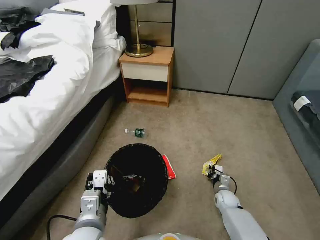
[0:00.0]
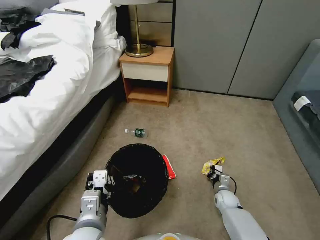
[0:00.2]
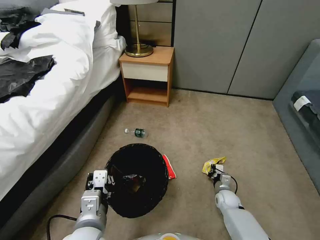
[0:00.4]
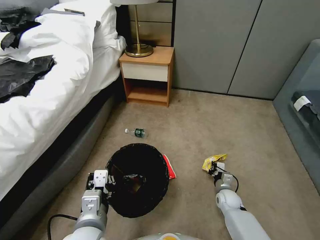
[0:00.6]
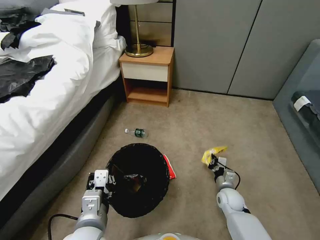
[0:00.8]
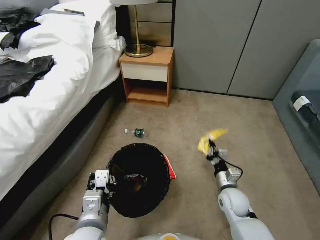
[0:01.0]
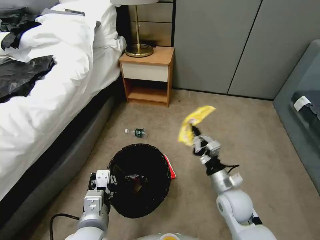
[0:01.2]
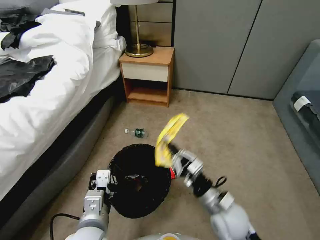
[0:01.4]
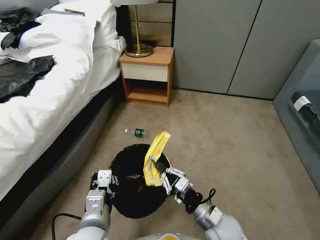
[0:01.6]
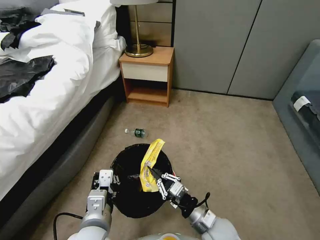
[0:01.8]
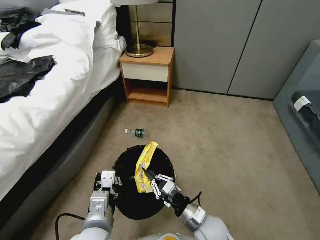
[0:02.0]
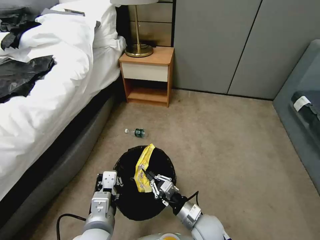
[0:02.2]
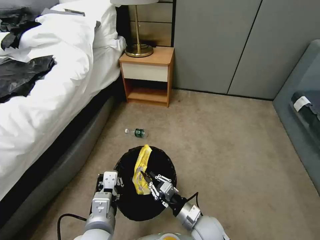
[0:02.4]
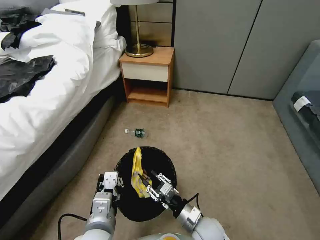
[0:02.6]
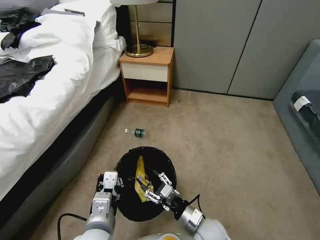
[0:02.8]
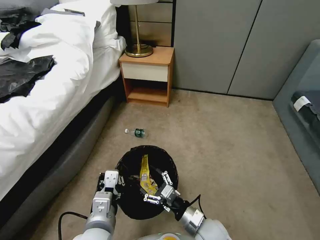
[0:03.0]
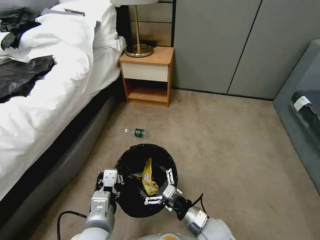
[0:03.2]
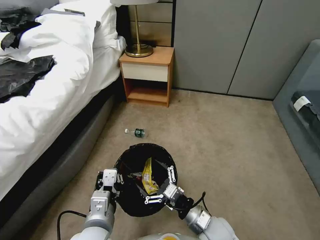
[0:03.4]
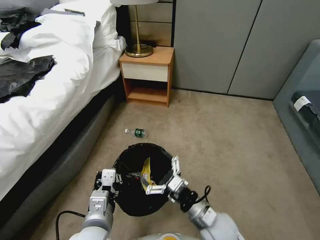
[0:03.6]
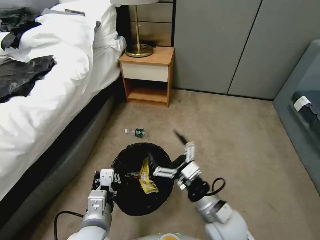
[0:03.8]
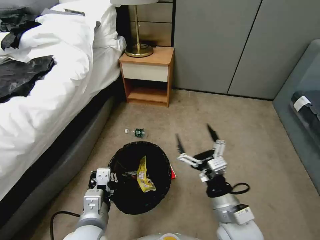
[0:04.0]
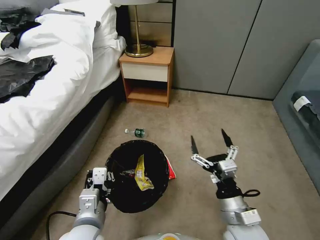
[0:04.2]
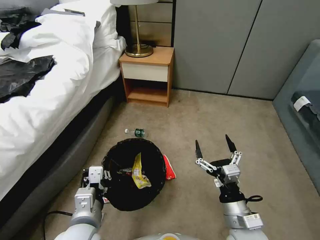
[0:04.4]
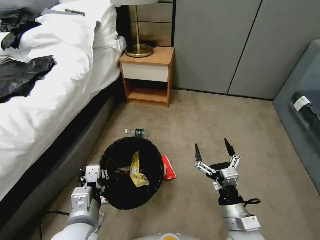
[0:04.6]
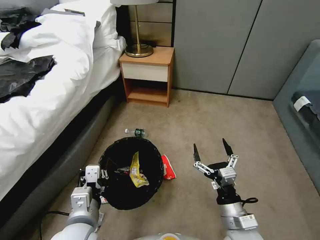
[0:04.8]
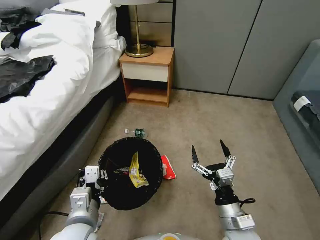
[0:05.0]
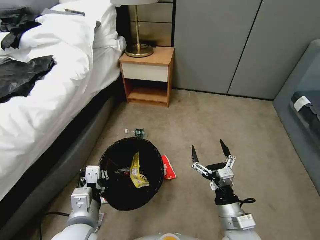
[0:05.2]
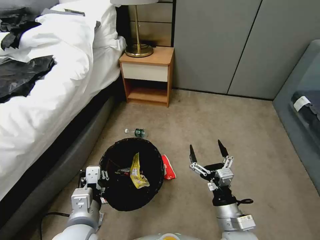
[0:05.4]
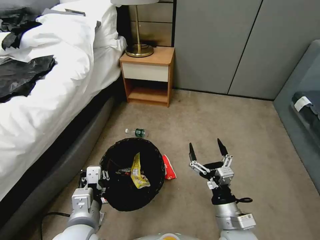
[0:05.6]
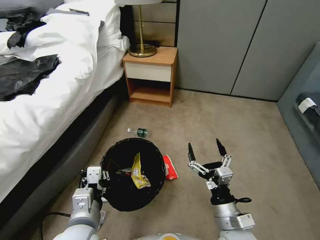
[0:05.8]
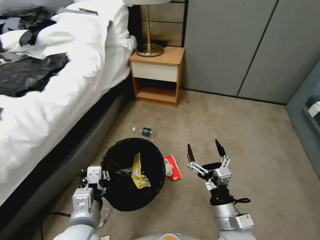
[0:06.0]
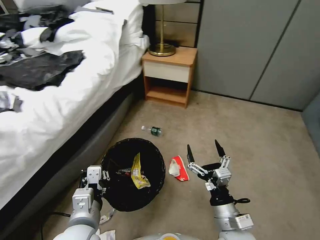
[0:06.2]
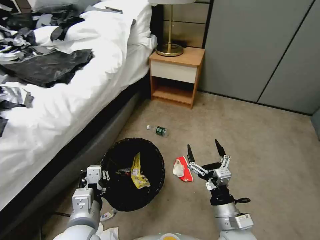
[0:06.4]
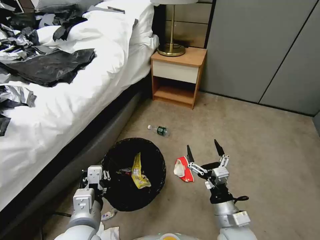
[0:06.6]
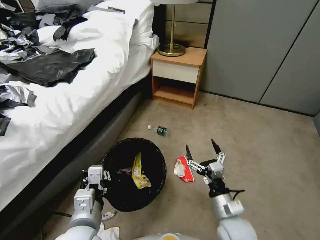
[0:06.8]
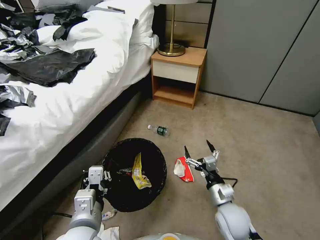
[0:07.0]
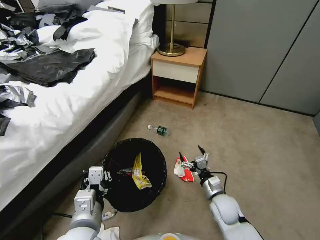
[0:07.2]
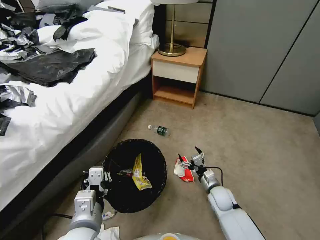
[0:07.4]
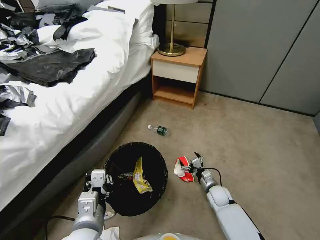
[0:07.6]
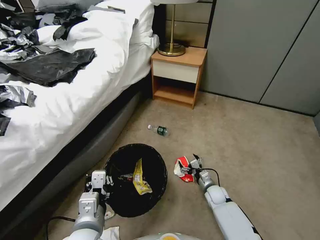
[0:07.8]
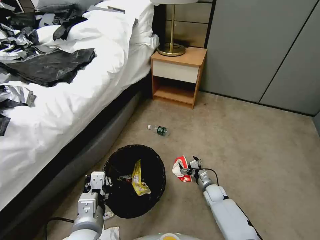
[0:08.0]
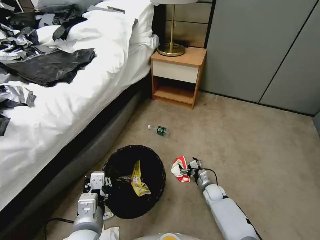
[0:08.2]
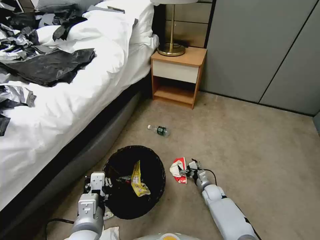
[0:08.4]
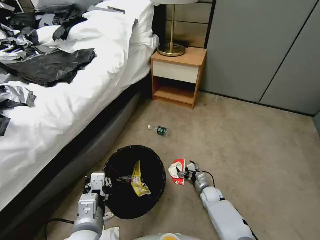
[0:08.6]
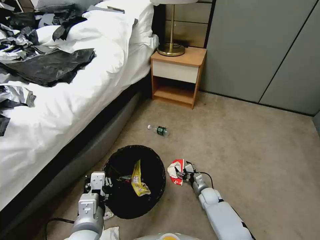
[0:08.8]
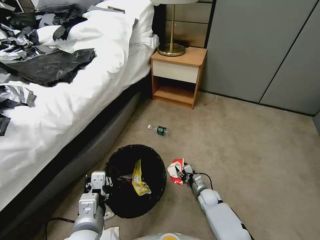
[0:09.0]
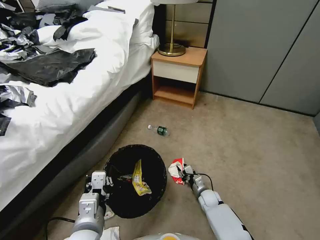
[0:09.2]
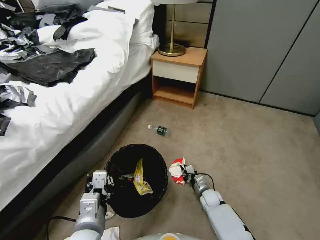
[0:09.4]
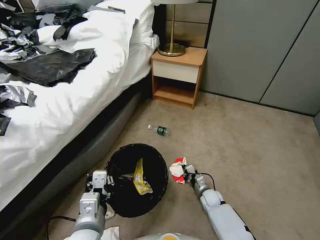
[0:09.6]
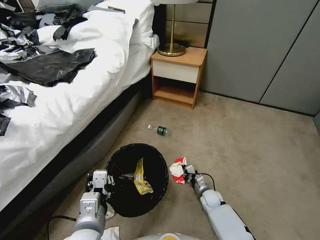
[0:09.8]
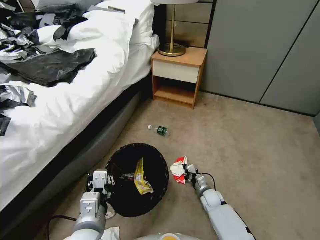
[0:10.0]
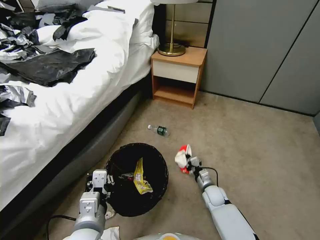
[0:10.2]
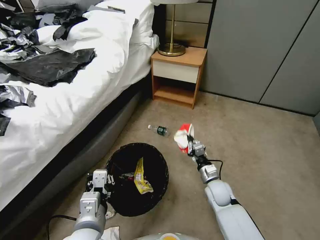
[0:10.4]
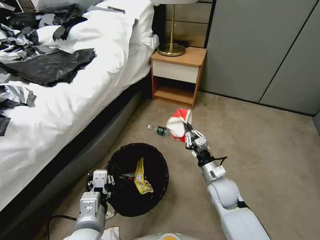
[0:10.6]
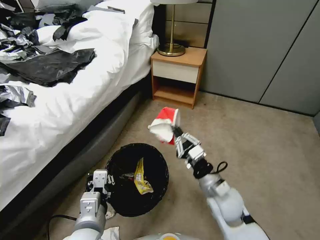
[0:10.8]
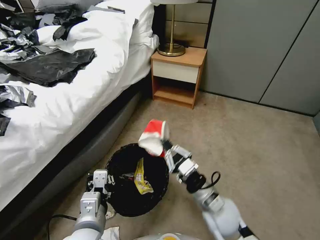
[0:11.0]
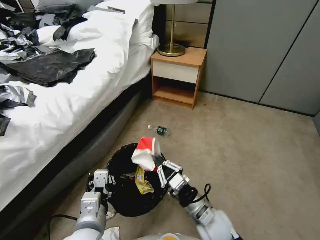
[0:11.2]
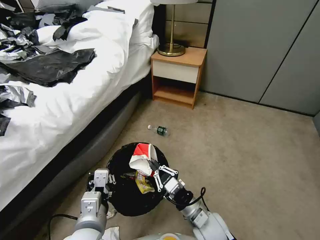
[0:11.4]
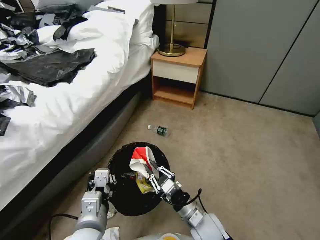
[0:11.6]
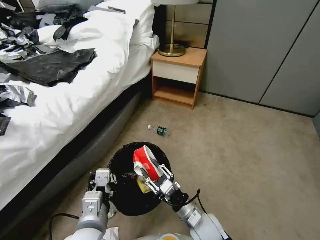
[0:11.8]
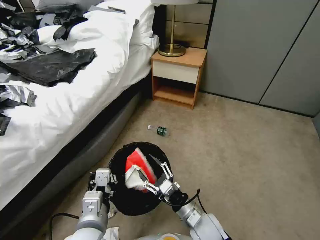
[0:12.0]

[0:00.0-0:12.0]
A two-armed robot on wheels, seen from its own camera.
Task of the whole recording: Pick up the trash bin, then pick up the garbage from the floor and place it into the trash bin.
0:00.0 to 0:01.6: The right gripper is displaced upward, backward and to the left by about 25 cm.
0:01.6 to 0:03.0: The right gripper ends up about 5 cm from where it was, and opens up.
0:03.0 to 0:04.4: The right gripper heads upward and to the right, covering about 10 cm.
0:06.0 to 0:07.6: The right gripper heads downward and forward, covering some 25 cm.
0:07.6 to 0:09.0: The right gripper heads downward, covering roughly 5 cm, and closes.
0:09.0 to 0:10.4: The right gripper heads upward, covering approximately 15 cm, and closes its fingers.
0:10.4 to 0:12.0: The right gripper moves backward and to the left, about 15 cm, and opens.

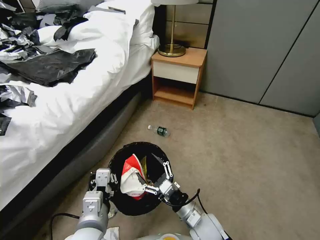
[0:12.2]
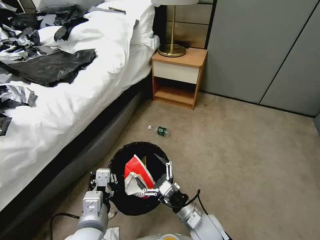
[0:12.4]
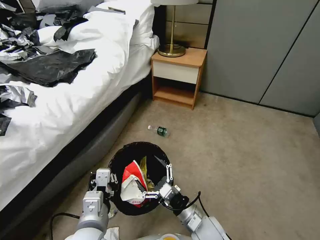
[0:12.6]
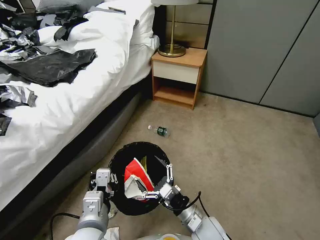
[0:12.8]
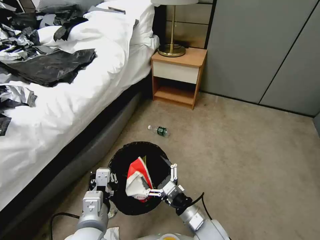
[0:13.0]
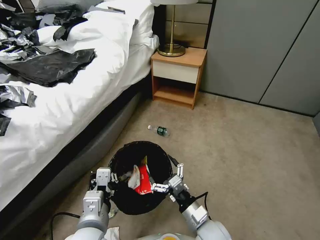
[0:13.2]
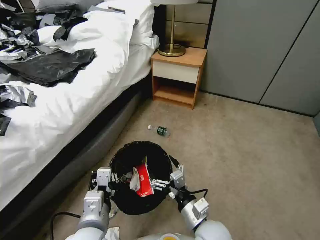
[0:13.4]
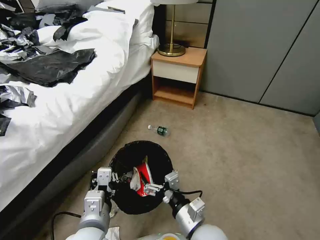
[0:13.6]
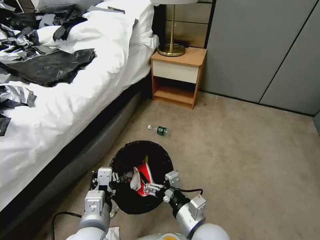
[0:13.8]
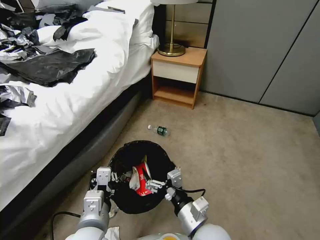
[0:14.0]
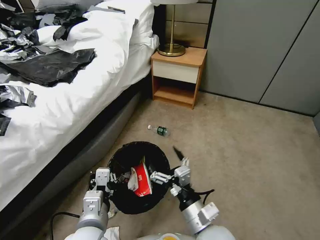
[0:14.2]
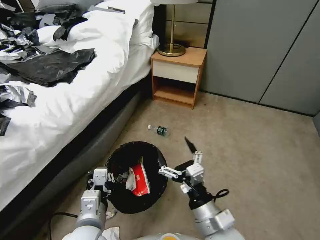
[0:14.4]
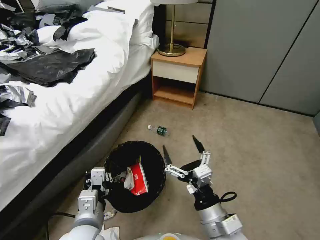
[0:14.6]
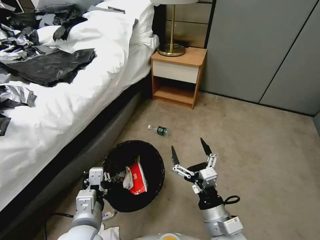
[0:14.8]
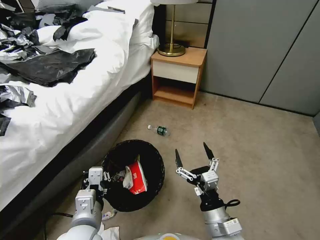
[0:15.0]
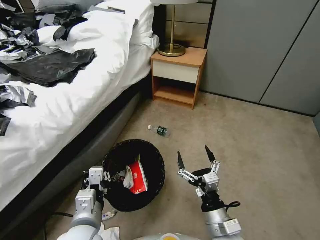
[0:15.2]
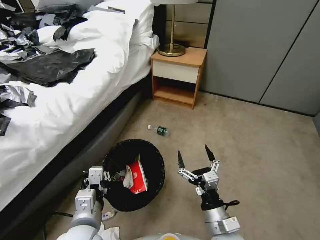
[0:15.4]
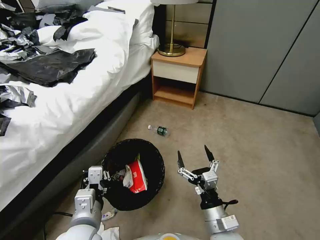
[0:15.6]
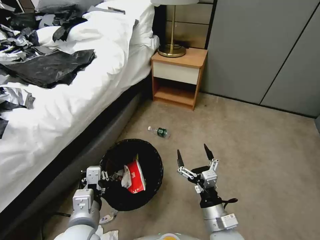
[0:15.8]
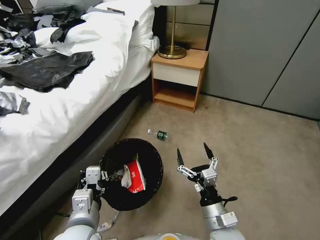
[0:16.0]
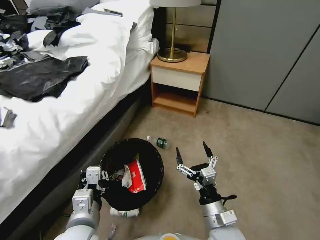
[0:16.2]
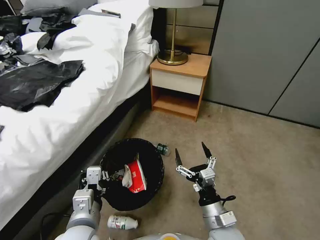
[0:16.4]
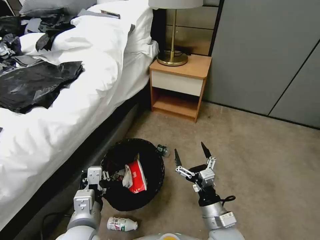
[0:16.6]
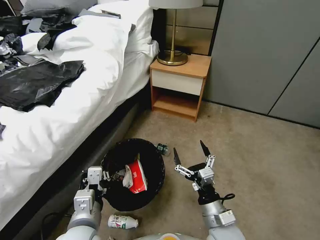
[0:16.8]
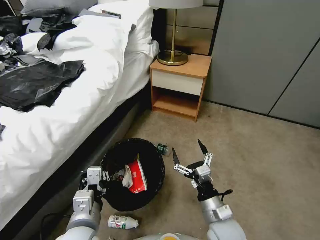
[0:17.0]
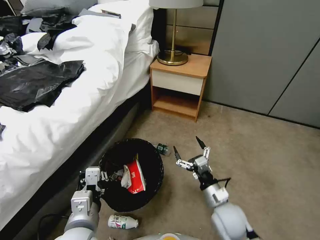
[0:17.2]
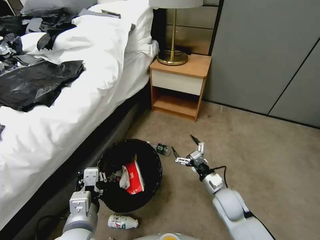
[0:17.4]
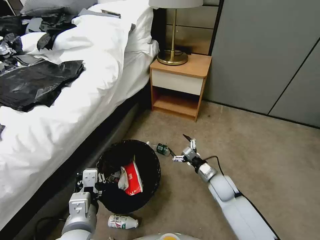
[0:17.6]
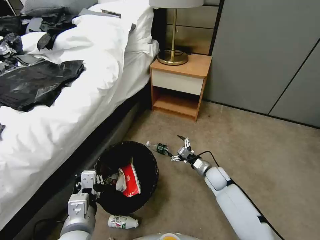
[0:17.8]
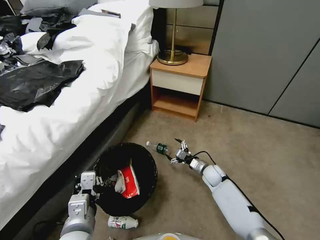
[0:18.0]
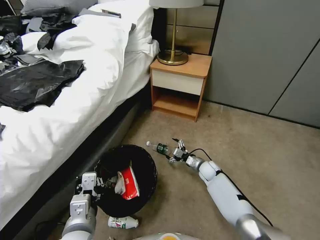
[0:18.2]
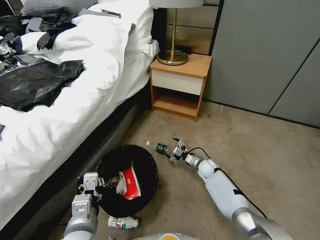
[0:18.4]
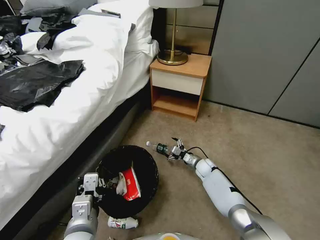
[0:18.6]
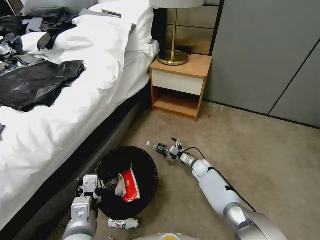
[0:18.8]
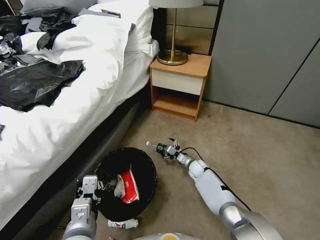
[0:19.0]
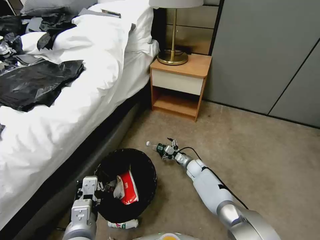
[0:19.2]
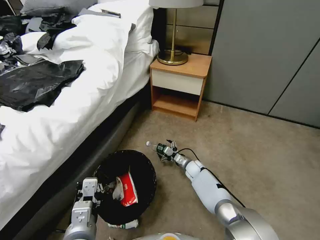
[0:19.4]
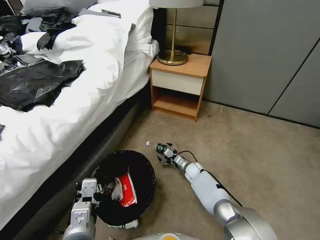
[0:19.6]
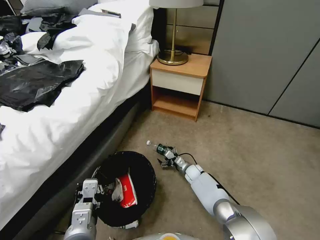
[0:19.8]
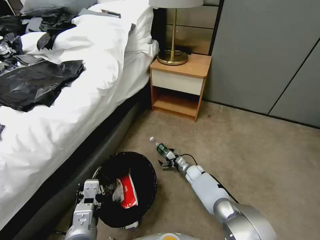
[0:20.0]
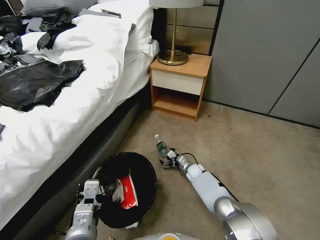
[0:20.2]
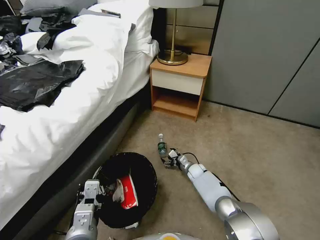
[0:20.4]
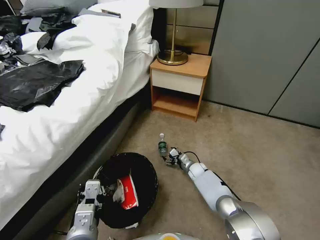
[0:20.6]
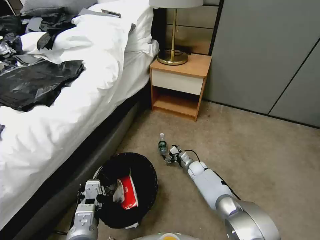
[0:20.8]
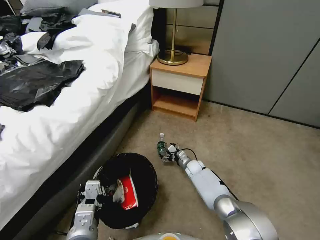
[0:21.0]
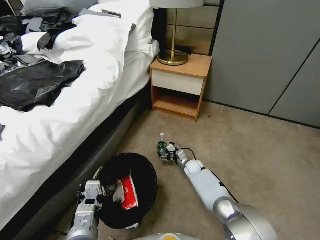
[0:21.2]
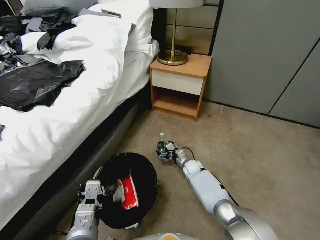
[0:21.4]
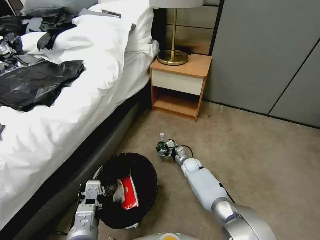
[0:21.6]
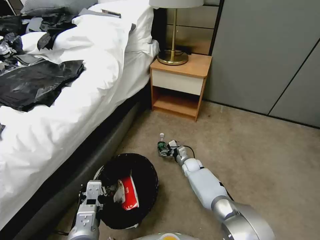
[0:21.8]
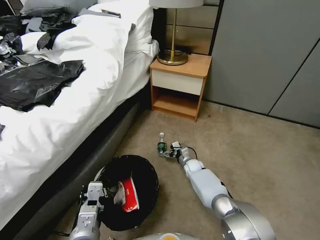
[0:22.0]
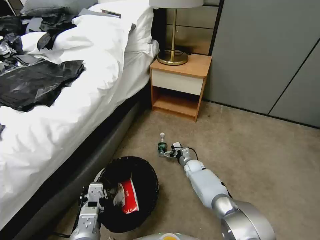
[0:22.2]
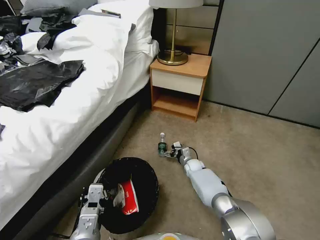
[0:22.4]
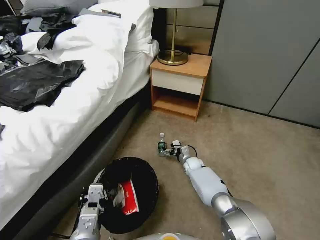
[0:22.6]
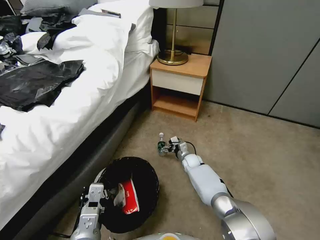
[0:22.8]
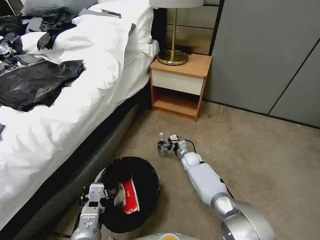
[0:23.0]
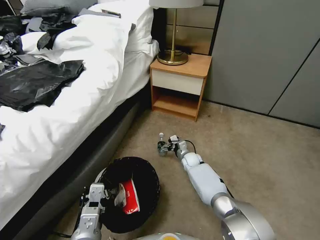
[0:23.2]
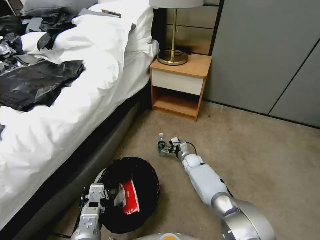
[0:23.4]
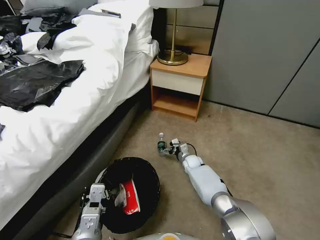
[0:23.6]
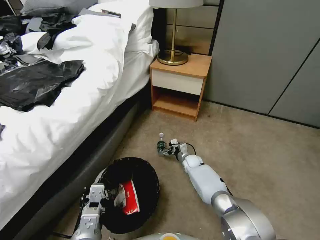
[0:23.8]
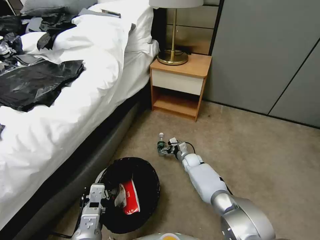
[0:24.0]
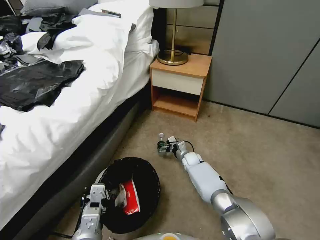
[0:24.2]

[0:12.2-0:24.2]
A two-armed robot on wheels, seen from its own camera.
Task of the whole recording: Pick up the trash bin, then pick up the garbage from the floor and place it into the trash bin.
0:12.2 to 0:13.8: The right gripper is displaced upward by roughly 10 cm.
0:13.8 to 0:15.2: The right gripper heads to the right, covering about 5 cm.
0:16.6 to 0:18.2: The right gripper is displaced forward and downward by about 30 cm.
0:18.2 to 0:19.8: The right gripper moves to the left, some 5 cm.
0:19.8 to 0:21.2: The grippers stay close to where they were, moving slightly.
0:21.2 to 0:24.2: The grippers stay close to where they were, moving slightly.
